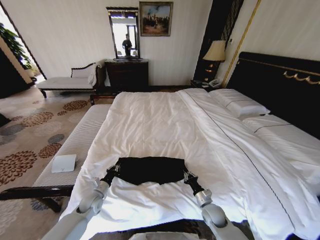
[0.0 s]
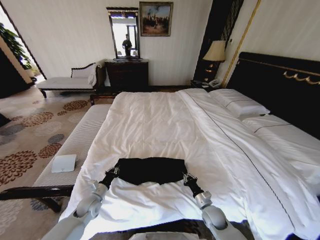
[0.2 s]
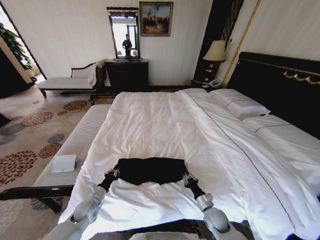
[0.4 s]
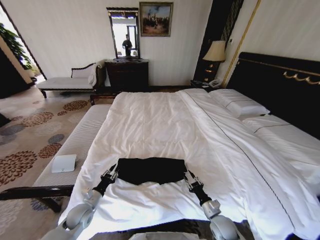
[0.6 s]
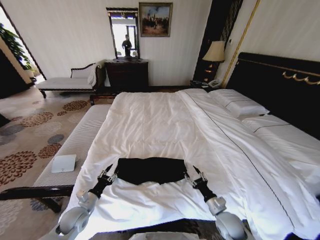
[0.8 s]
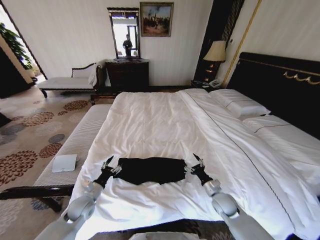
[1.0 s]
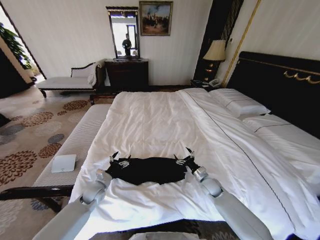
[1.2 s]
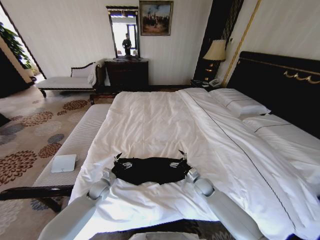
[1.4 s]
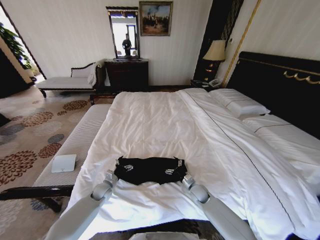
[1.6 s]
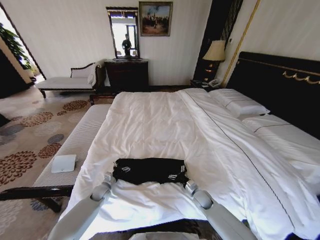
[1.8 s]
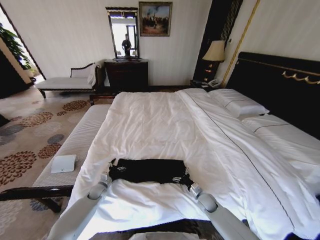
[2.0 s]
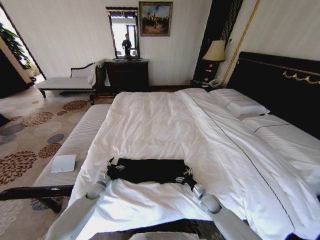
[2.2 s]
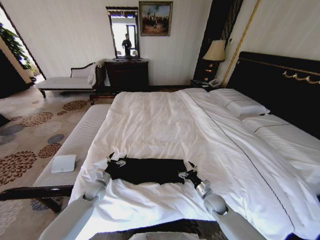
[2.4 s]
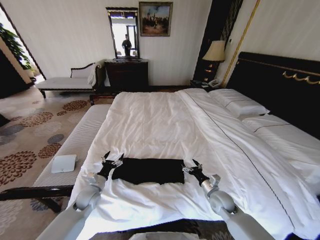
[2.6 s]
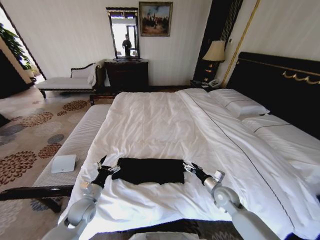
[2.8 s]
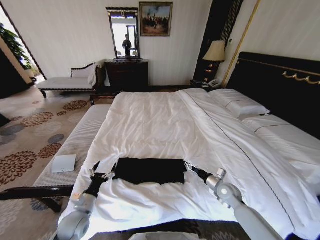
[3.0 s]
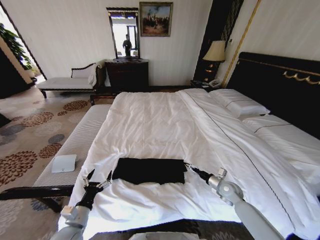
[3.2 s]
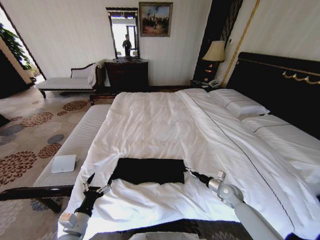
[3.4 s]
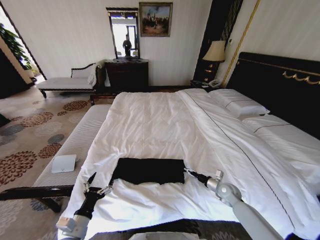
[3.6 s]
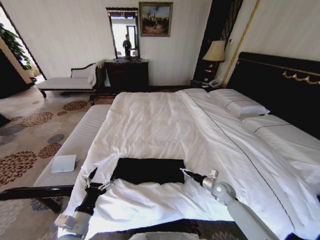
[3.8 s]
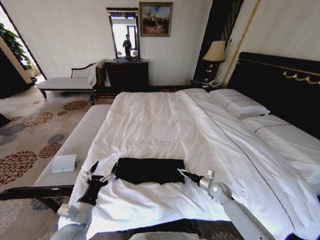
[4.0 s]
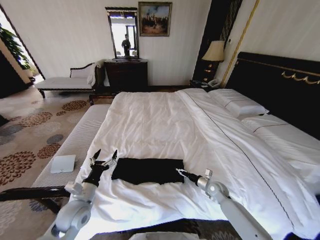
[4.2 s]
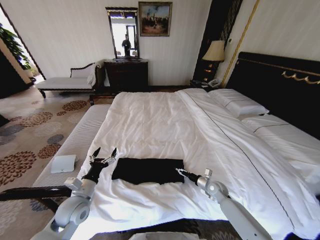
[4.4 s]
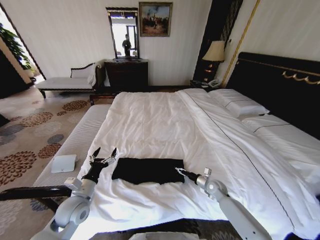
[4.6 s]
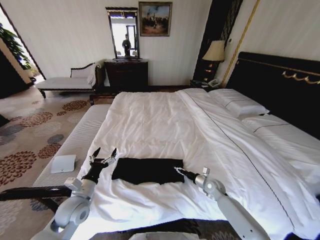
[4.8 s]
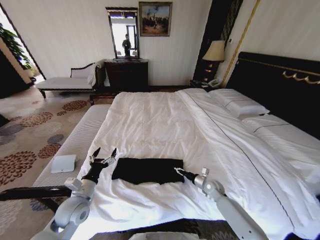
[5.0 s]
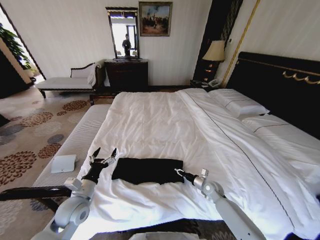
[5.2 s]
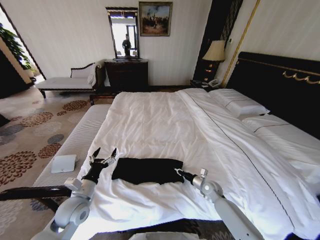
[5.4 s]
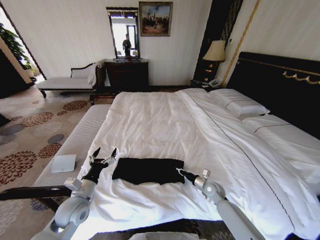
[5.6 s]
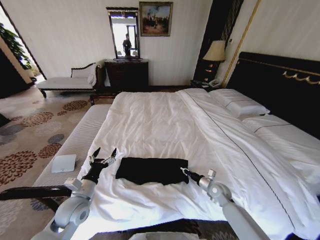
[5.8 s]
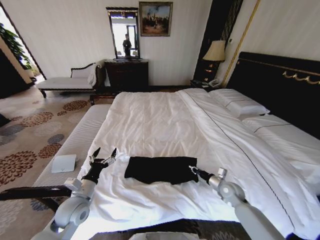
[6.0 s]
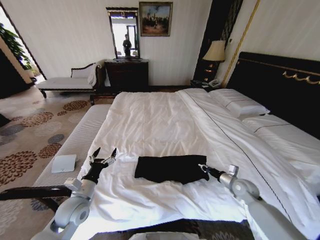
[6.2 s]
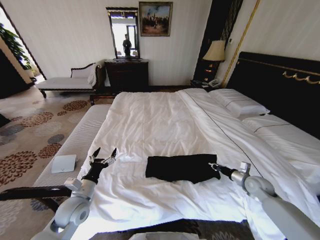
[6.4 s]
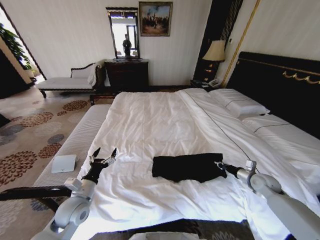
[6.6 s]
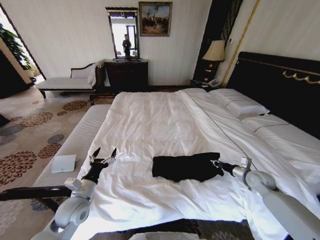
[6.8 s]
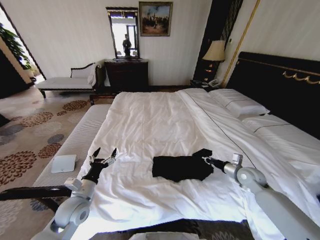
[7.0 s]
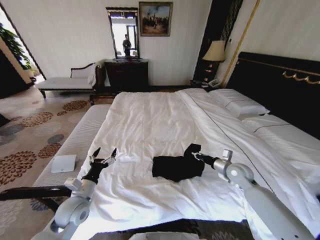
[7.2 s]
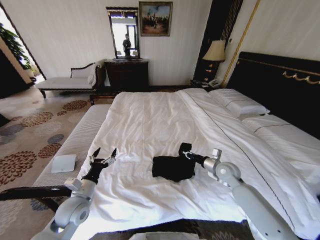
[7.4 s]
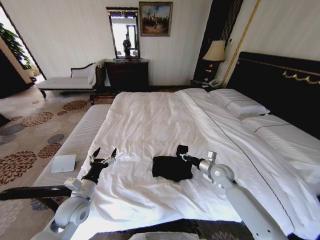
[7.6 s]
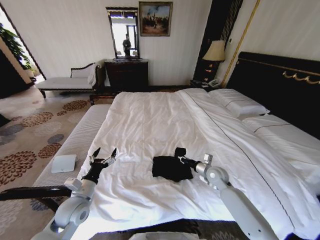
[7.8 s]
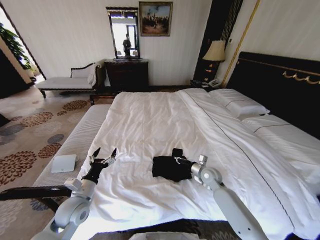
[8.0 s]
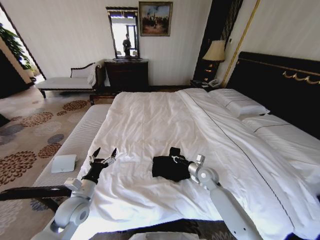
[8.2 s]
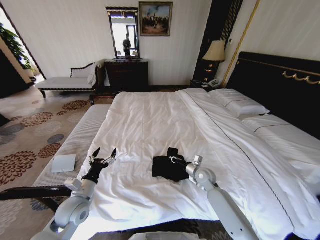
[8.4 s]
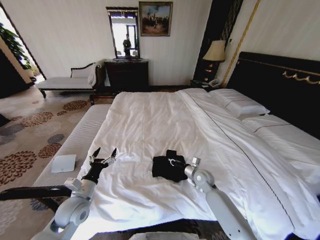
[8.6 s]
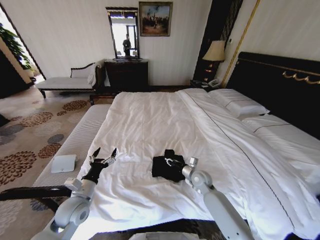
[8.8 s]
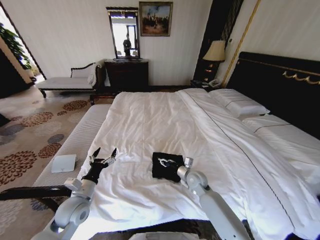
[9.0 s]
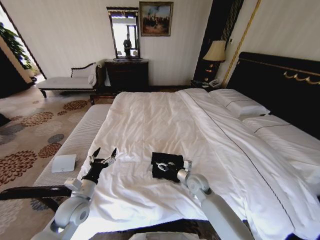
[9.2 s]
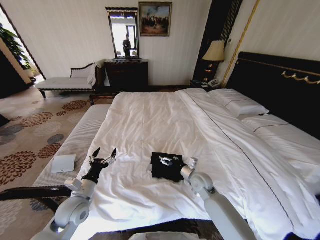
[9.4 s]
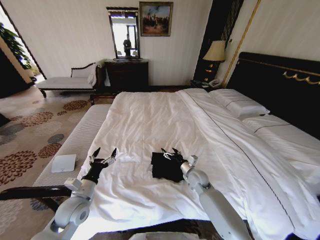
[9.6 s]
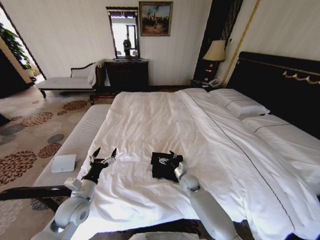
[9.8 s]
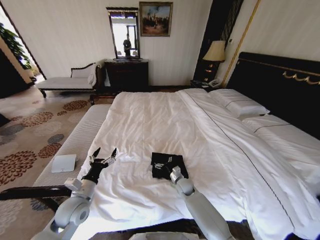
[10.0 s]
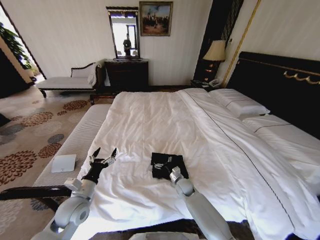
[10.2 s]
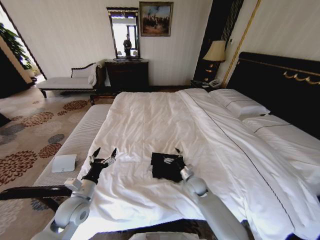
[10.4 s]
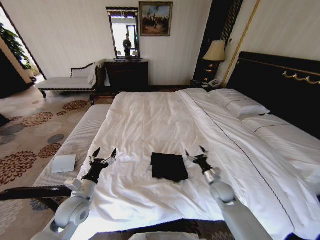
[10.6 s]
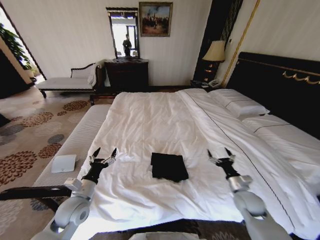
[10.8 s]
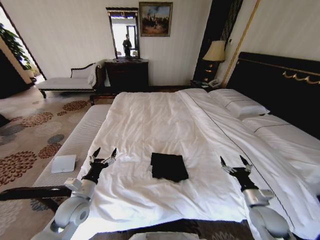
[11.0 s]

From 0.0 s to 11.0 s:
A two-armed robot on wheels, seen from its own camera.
Task of the whole recording: Fold the clothes on the bed.
From 0.0 s to 1.6 s: The left gripper is displaced forward by about 5 cm, and opens up; the right gripper moves forward, roughly 10 cm, and opens up.
From 1.6 s to 3.2 s: The right gripper travels to the right and upward by some 15 cm. Meanwhile the left gripper heads backward and upward, covering some 20 cm.
From 3.2 s to 4.8 s: The right gripper heads to the left, covering approximately 5 cm. Meanwhile the left gripper shifts roughly 10 cm forward and upward.
From 4.8 s to 6.2 s: The right gripper moves to the right and upward, some 10 cm, and closes its fingers.
From 6.2 s to 7.8 s: The right gripper heads to the left and forward, covering approximately 10 cm.
From 7.8 s to 9.4 s: The right gripper goes about 10 cm to the left, and opens its fingers.
From 9.4 s to 11.0 s: The right gripper heads to the right and backward, covering about 25 cm.
